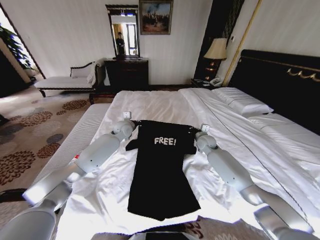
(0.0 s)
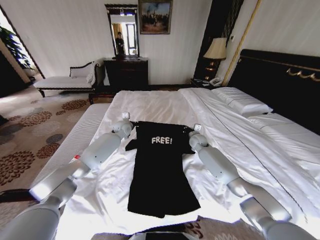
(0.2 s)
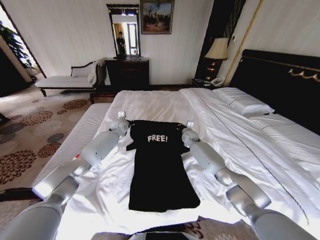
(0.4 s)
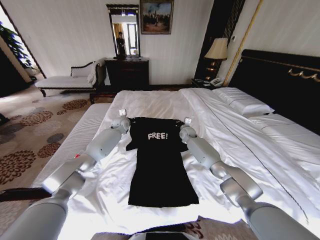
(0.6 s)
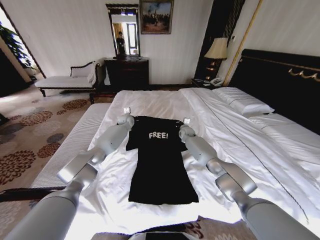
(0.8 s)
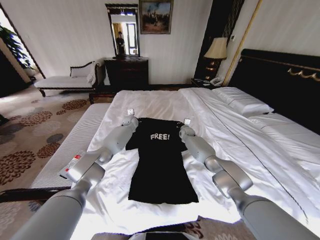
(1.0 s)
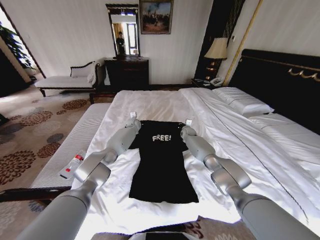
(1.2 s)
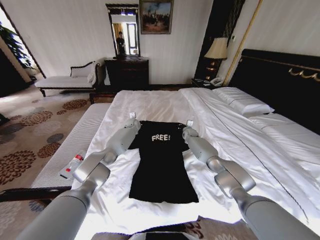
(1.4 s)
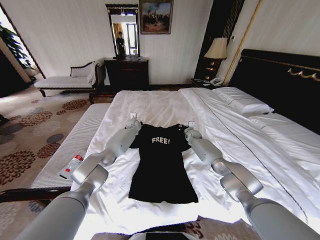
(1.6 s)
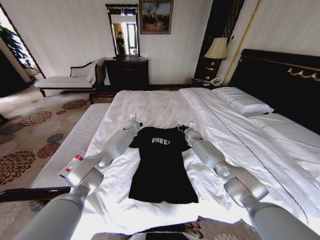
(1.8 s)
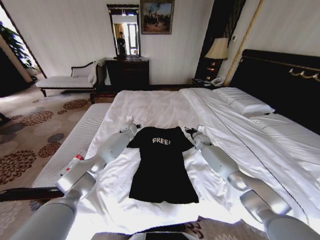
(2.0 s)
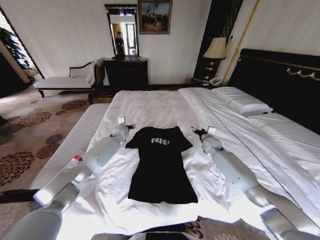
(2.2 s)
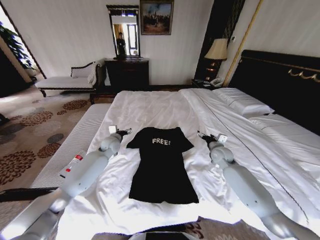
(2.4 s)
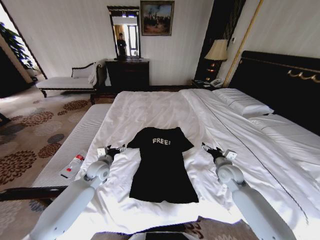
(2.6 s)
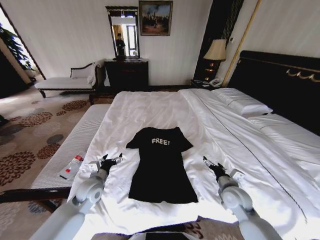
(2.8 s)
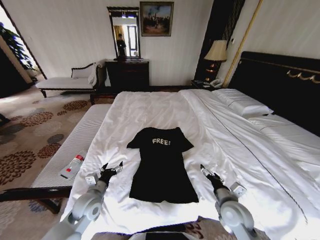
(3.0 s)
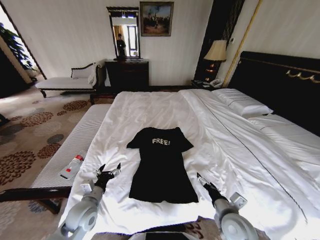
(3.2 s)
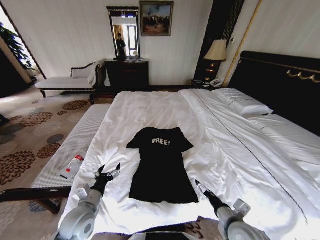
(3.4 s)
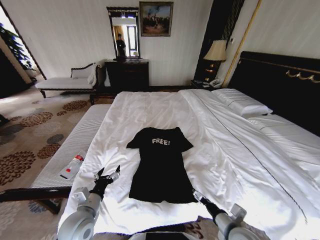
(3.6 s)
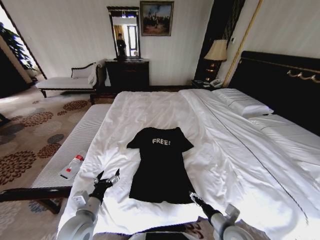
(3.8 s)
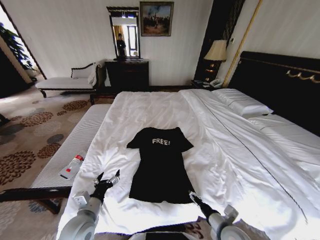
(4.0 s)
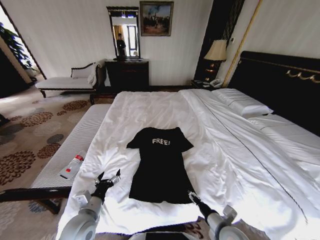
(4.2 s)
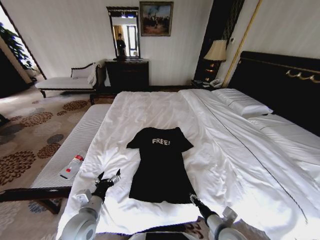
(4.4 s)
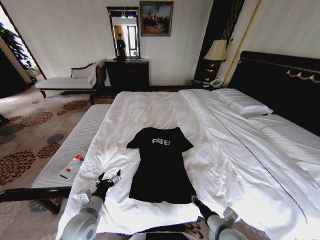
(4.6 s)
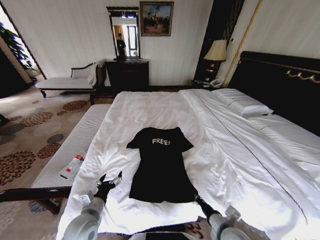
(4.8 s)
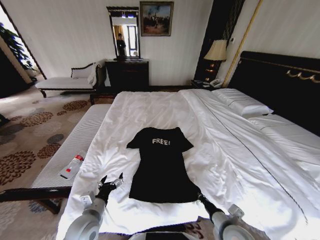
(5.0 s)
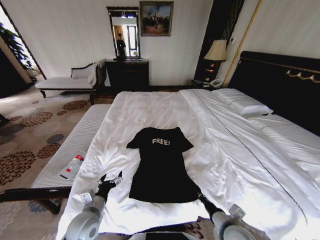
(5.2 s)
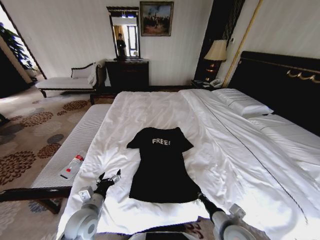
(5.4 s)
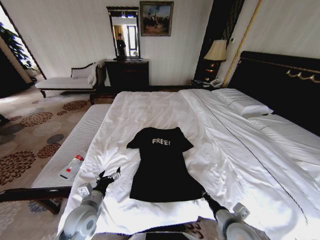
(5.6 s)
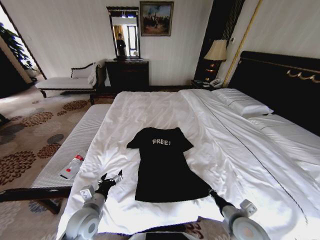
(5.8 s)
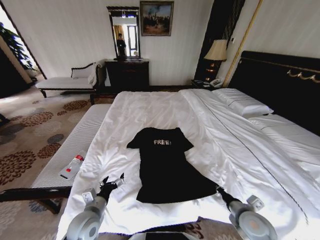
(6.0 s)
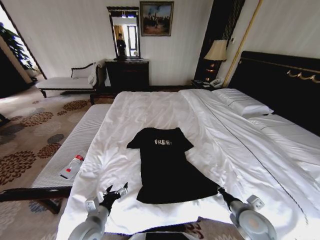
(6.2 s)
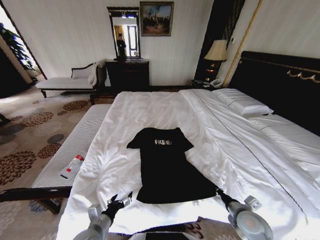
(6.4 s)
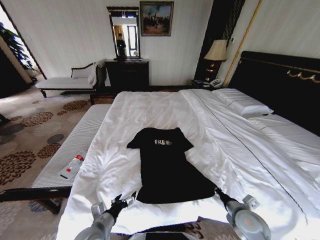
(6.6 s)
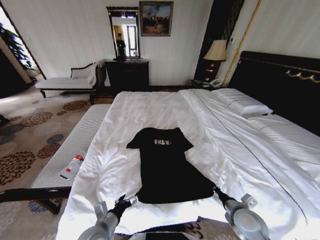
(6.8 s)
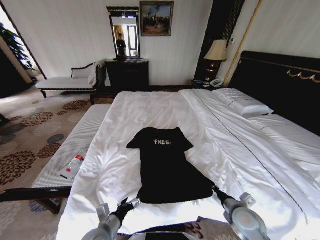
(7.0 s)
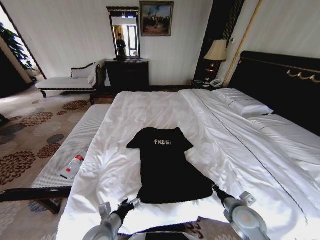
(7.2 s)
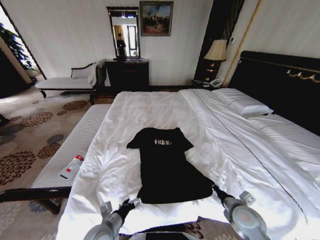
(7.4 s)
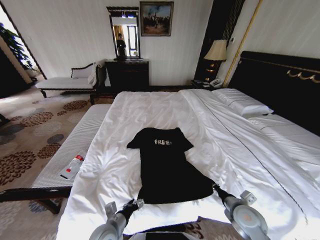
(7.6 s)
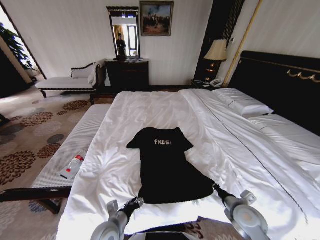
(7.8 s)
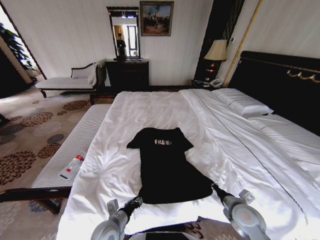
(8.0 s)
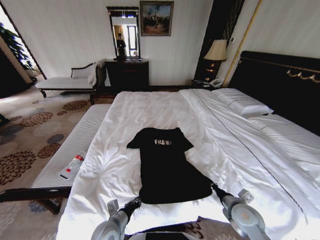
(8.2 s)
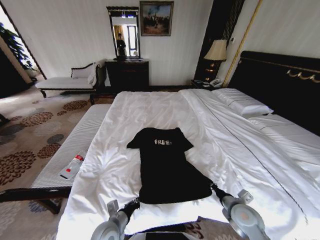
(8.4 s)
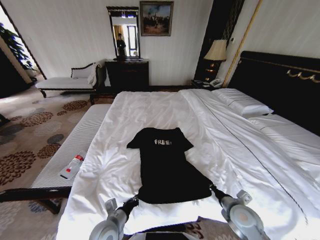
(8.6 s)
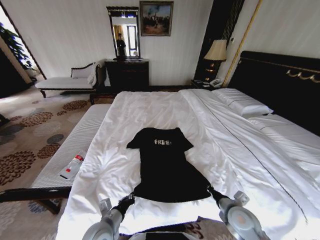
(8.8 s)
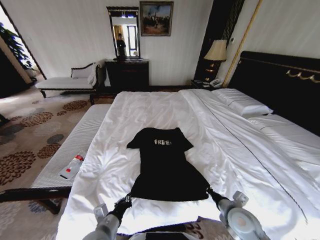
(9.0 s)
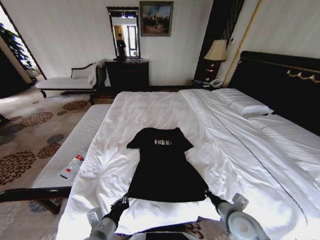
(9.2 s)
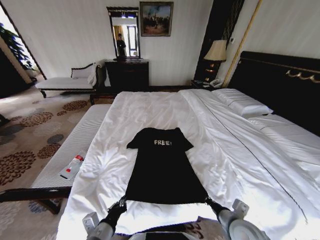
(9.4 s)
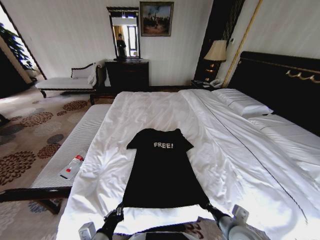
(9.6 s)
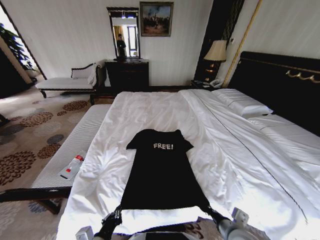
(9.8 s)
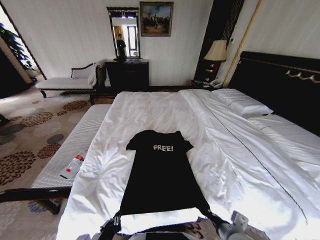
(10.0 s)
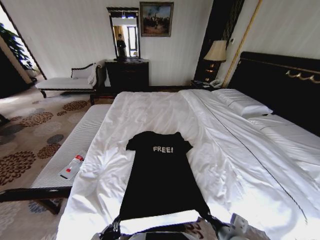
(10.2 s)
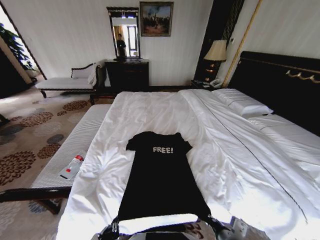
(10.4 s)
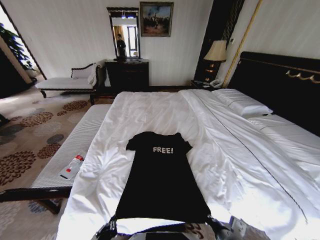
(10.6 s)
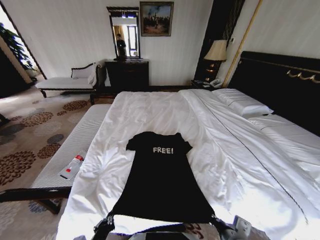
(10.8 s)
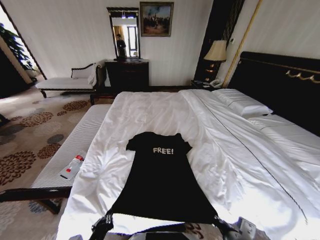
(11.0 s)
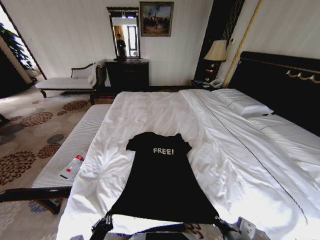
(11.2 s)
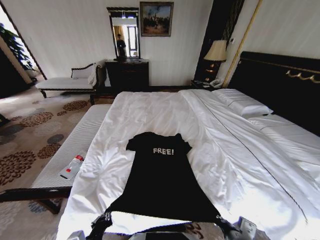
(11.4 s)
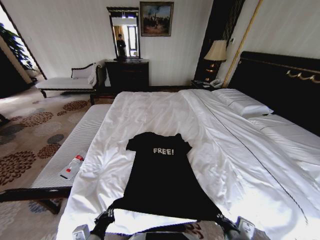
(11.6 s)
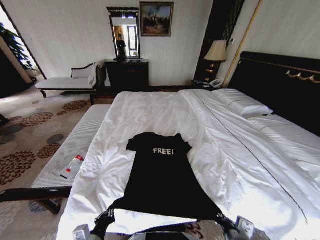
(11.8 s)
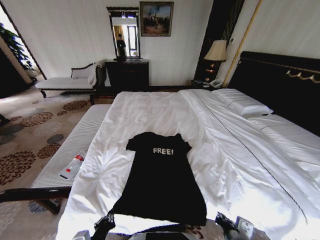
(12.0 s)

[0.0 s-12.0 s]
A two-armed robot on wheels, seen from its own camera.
Task of the whole recording: Fold the clothes on the bed.
0.0 to 1.6 s: Both grippers travel together forward and downward, about 15 cm.
1.6 to 3.0 s: Both grippers travel together backward, roughly 40 cm. The right gripper opens up. The left gripper opens up.
3.0 to 4.4 s: The grippers both shift backward by roughly 5 cm. The right gripper closes its fingers.
4.4 to 6.0 s: The right gripper shifts some 10 cm to the right, and closes.
6.0 to 7.6 s: The left gripper goes some 5 cm to the right.
7.6 to 9.0 s: The left gripper closes.
9.0 to 10.4 s: The left gripper goes some 10 cm backward, while the right gripper travels backward and to the left by some 10 cm.
10.4 to 12.0 s: The grippers stay close to where they were, moving slightly.

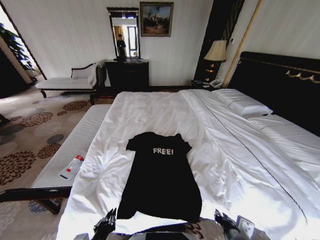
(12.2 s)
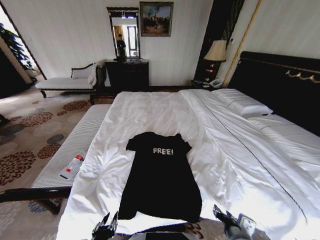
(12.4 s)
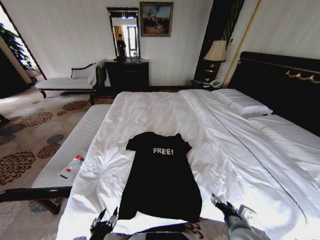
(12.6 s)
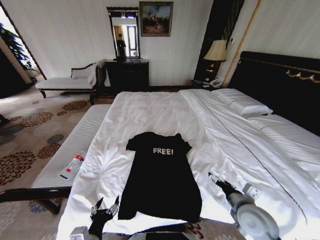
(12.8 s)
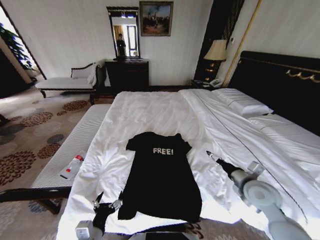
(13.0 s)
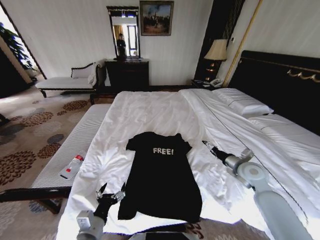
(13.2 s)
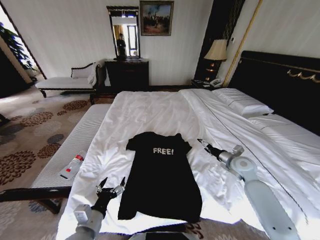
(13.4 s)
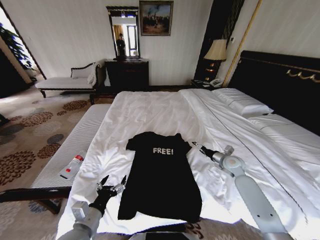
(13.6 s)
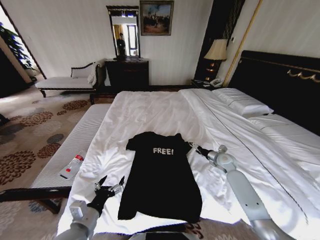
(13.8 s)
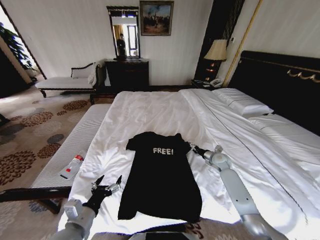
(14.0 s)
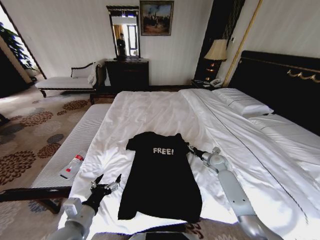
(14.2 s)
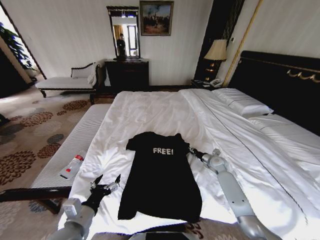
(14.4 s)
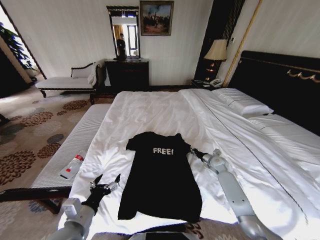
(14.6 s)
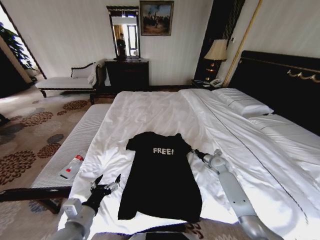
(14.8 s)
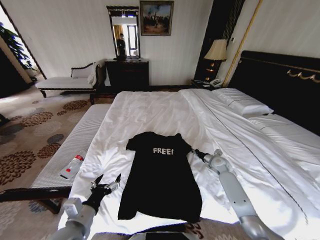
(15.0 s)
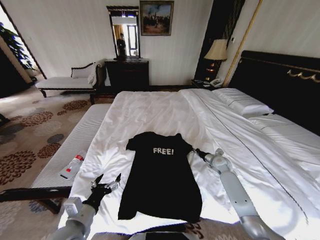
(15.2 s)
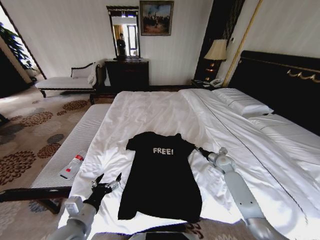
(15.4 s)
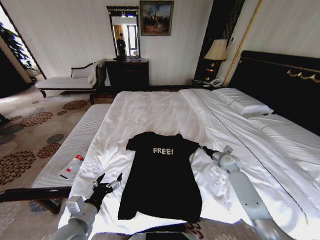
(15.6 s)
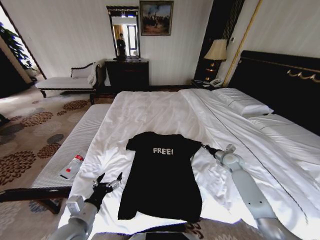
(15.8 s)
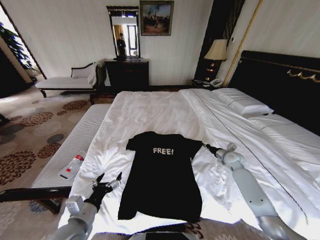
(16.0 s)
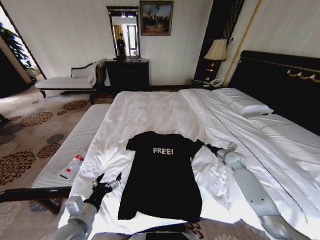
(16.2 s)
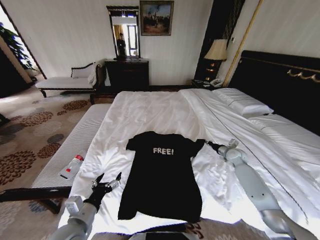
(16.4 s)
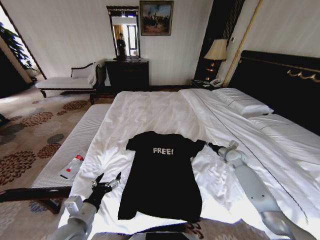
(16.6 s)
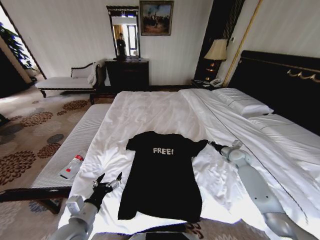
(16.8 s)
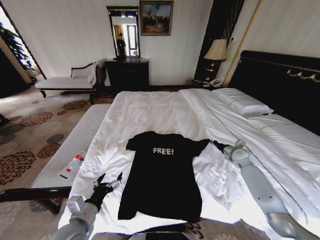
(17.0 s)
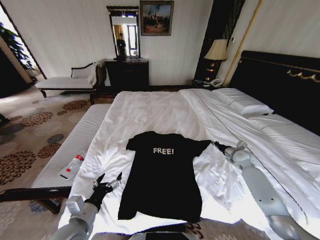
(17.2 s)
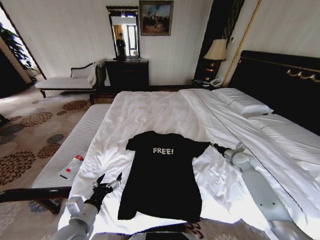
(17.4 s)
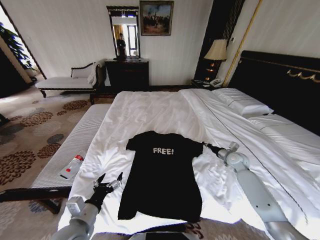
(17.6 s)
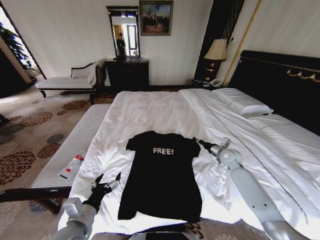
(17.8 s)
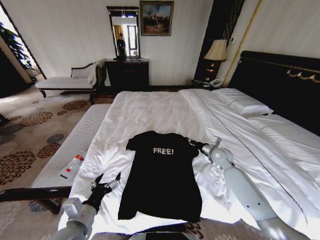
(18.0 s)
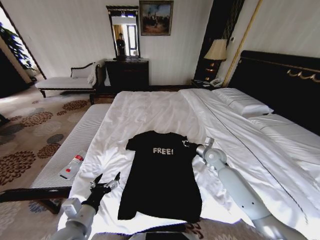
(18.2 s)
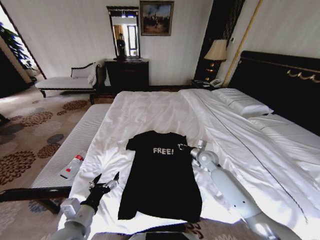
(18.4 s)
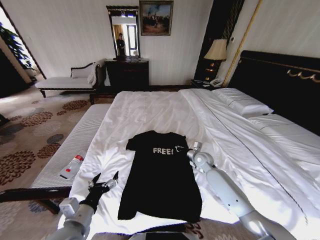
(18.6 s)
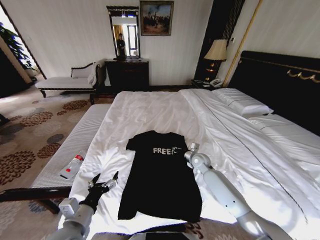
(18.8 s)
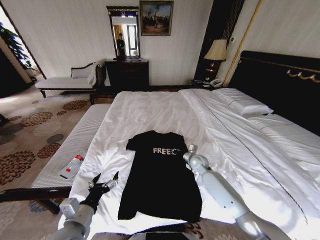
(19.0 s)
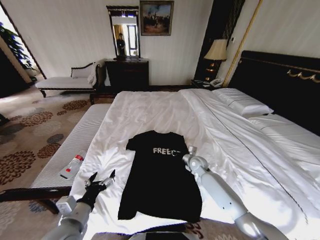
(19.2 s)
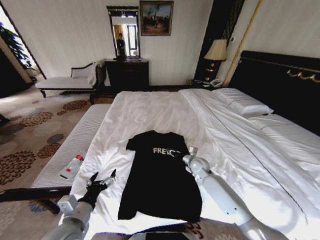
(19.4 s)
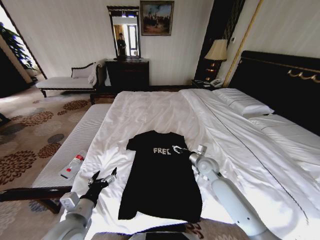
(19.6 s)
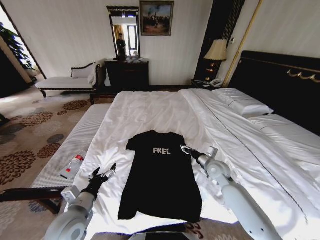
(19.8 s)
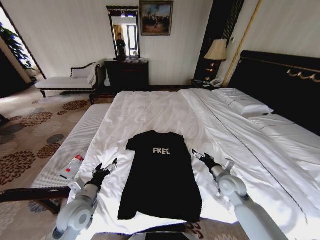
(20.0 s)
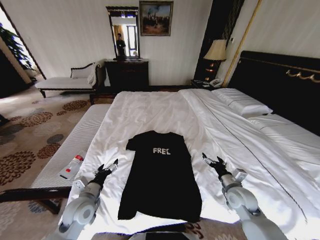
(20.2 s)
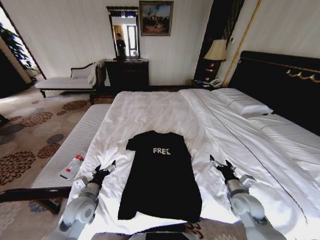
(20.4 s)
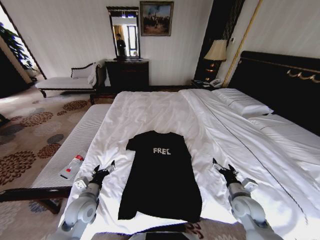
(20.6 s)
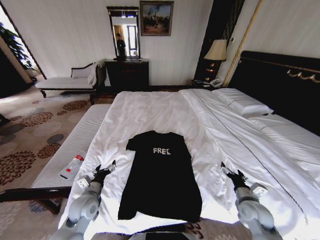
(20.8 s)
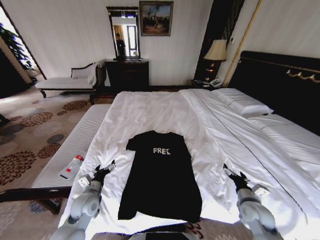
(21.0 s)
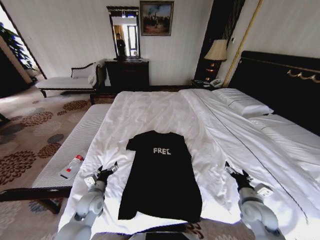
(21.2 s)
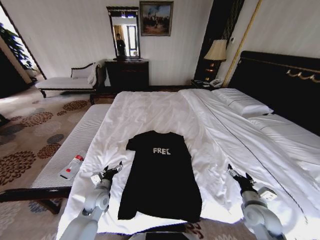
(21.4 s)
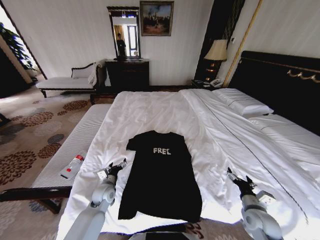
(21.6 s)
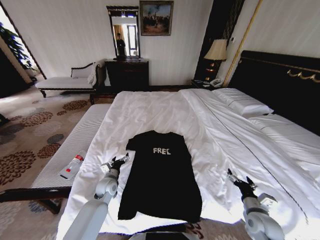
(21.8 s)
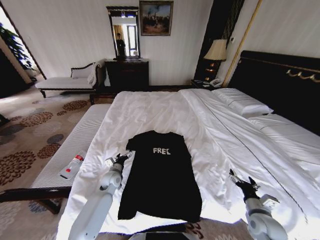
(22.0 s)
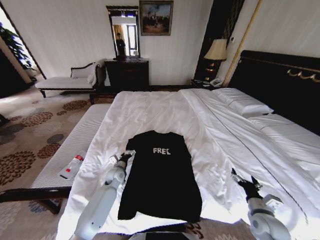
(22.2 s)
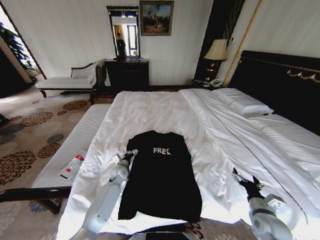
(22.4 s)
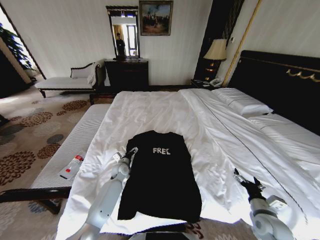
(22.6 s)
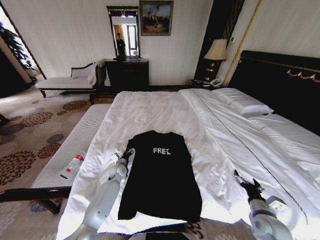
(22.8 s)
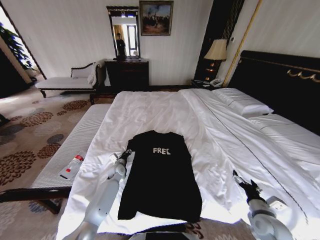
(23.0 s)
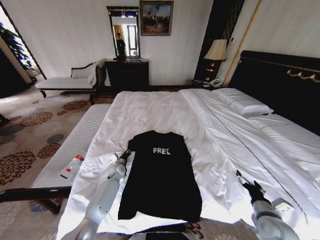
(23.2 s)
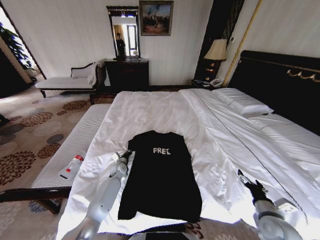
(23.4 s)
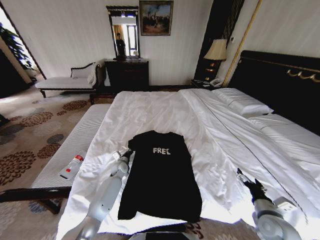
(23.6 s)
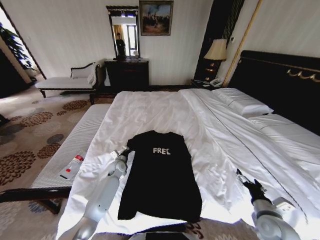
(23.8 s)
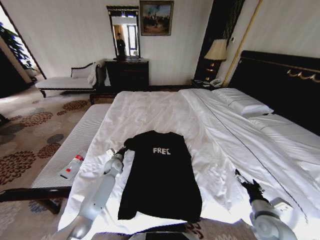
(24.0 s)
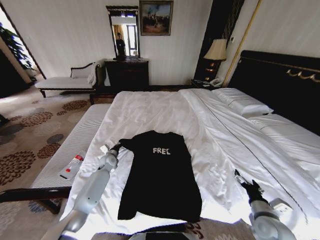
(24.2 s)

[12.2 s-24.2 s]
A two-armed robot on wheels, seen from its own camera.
Task of the whole recording: Fold the clothes on the bed.
12.2 to 13.8 s: The left gripper travels forward by about 10 cm, and opens, while the right gripper goes about 35 cm forward, and opens its fingers.
13.8 to 15.2 s: The right gripper closes.
15.2 to 16.6 s: The right gripper shifts some 10 cm to the right and upward.
16.6 to 18.2 s: The right gripper travels to the left by approximately 15 cm.
18.2 to 19.8 s: The right gripper moves backward, approximately 5 cm, and opens its fingers.
19.8 to 21.2 s: The left gripper travels downward and forward by approximately 10 cm. Meanwhile the right gripper travels backward and to the right by roughly 20 cm.
21.2 to 22.6 s: The left gripper travels forward and to the right by some 20 cm, while the right gripper changes place by approximately 5 cm.
22.6 to 24.2 s: The left gripper heads to the left, covering some 10 cm, and closes.
